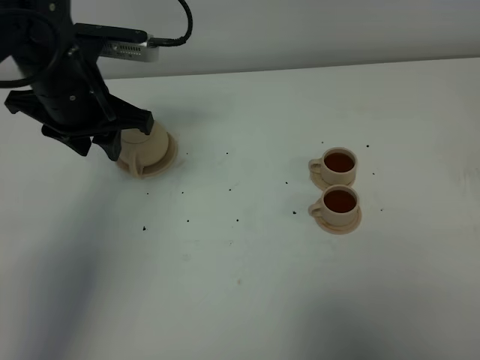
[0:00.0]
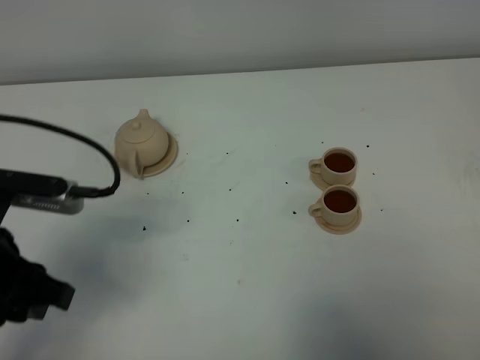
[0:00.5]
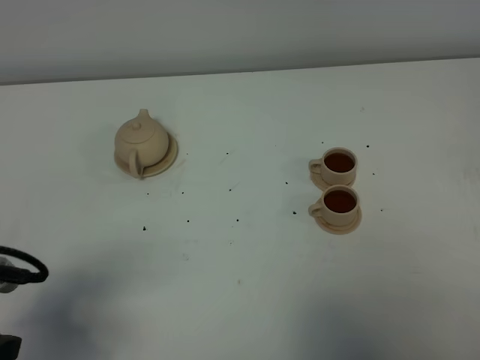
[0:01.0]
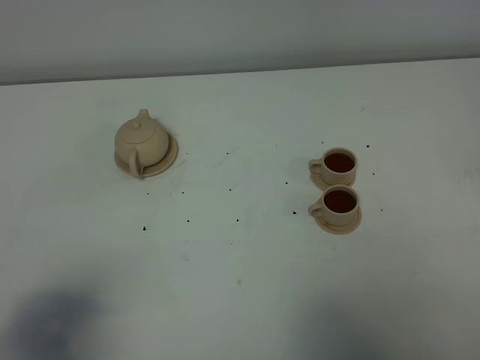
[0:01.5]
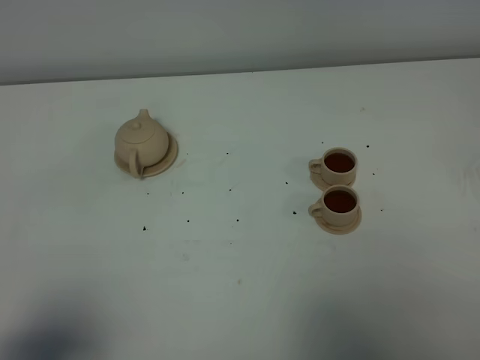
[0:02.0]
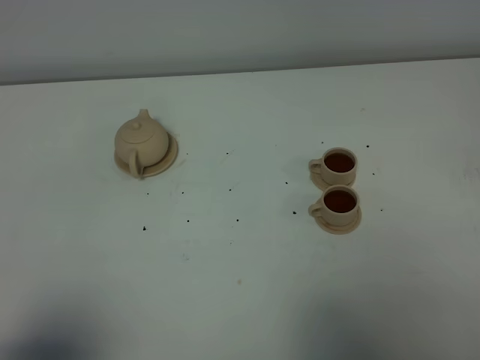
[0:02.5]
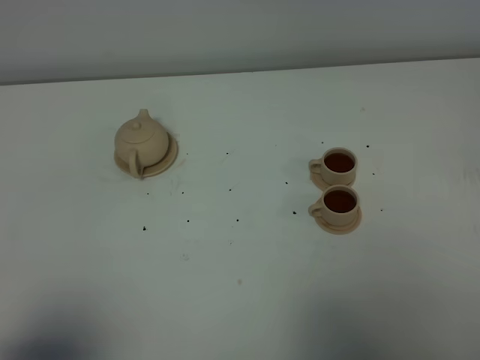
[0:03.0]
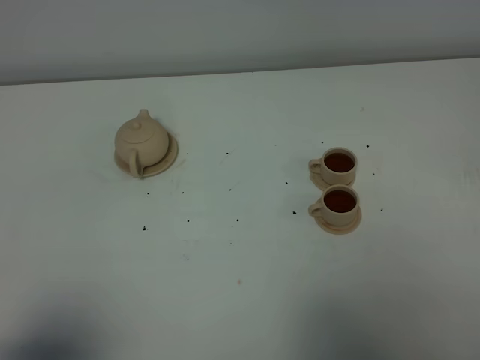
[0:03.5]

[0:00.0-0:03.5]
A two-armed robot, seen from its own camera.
Task of the whole recording: grasp the brown teapot and pour the tea into the two brown teacups one by one, put the brown teapot back in its original place.
0:00.0 to 0:02.0: The left gripper travels backward by approximately 35 cm.
0:02.0 to 0:03.5: Both grippers stay put.

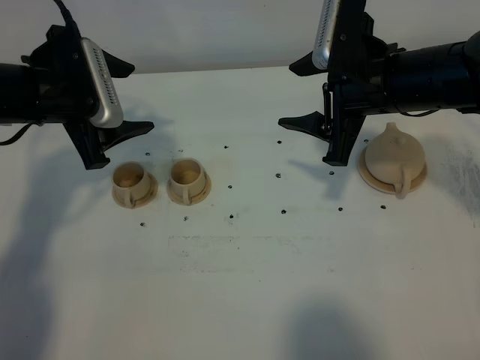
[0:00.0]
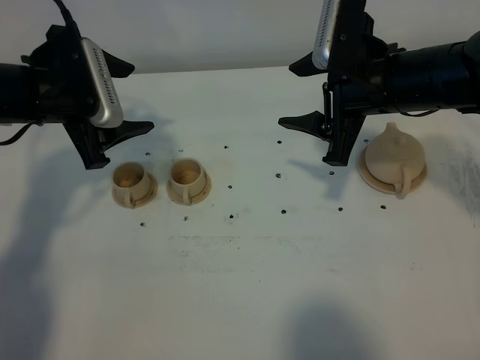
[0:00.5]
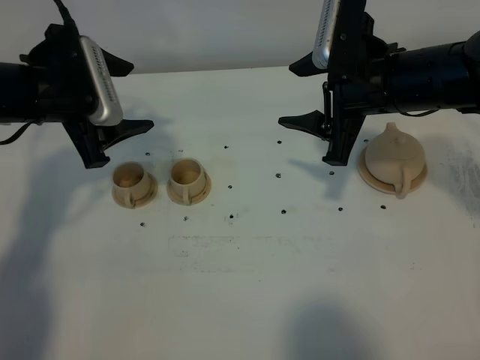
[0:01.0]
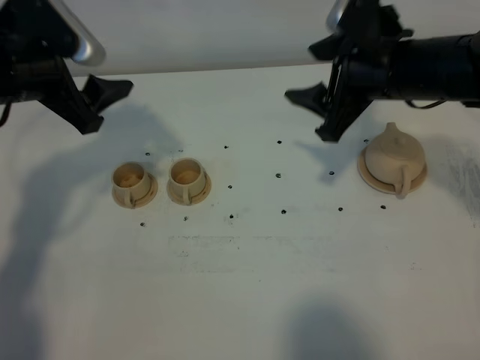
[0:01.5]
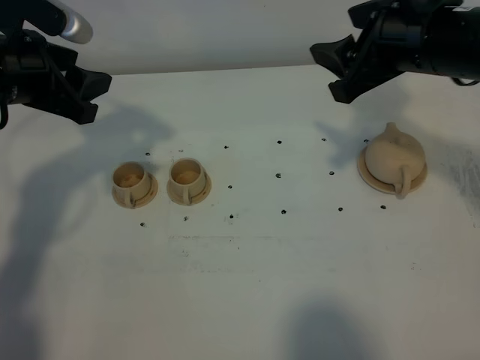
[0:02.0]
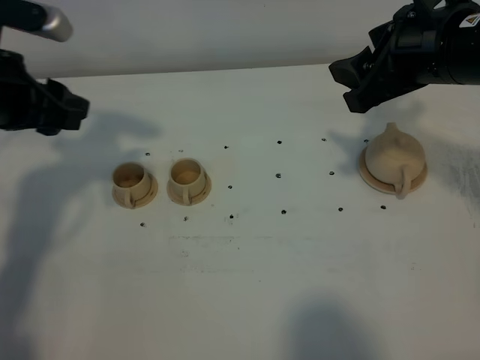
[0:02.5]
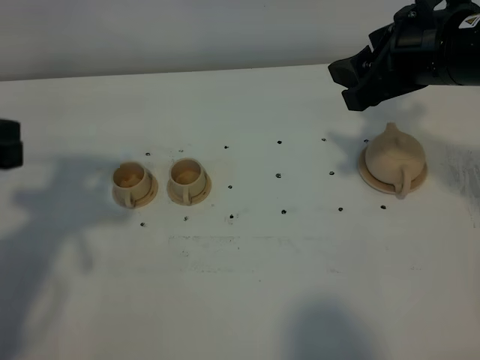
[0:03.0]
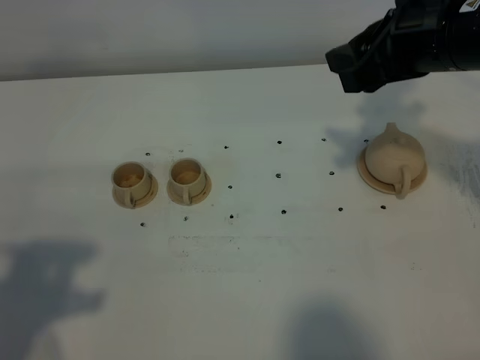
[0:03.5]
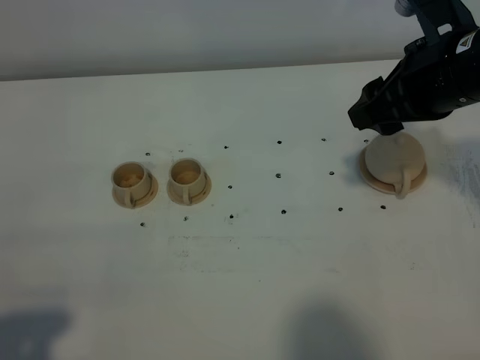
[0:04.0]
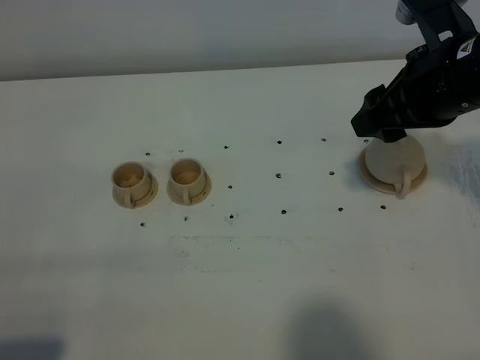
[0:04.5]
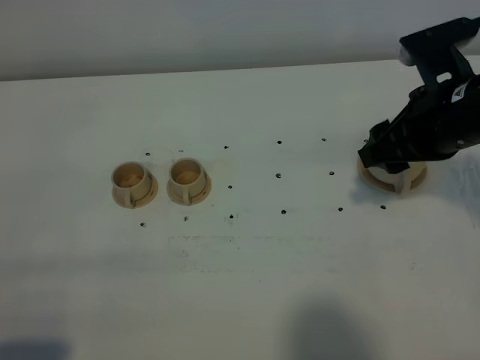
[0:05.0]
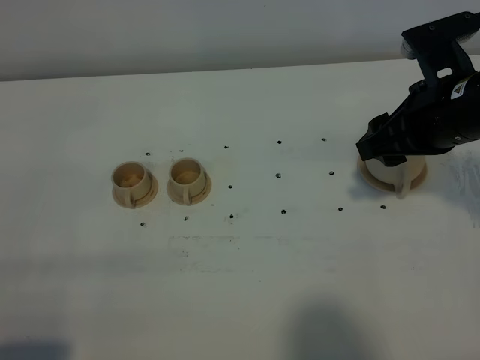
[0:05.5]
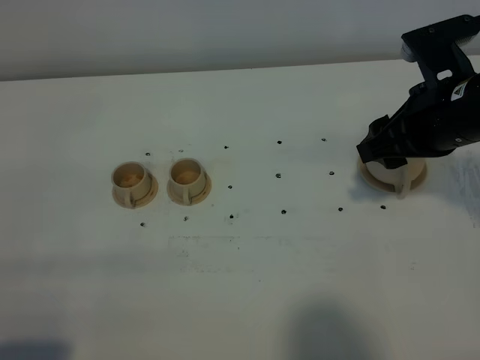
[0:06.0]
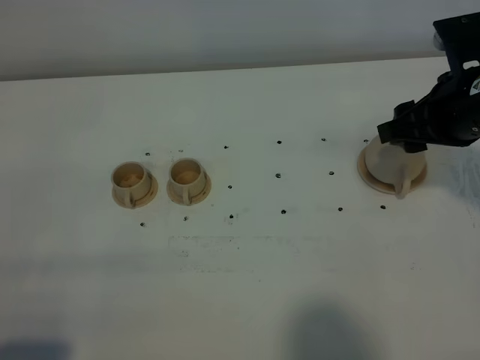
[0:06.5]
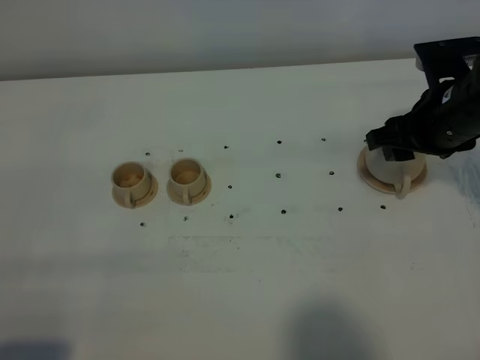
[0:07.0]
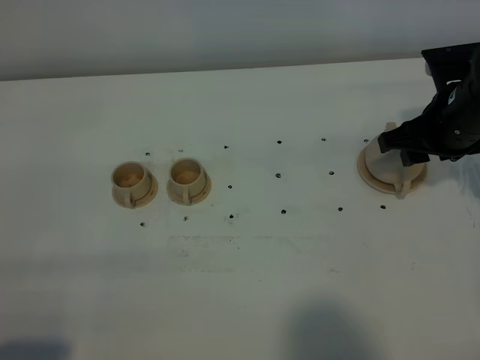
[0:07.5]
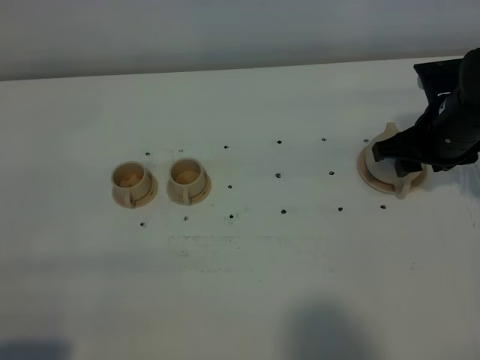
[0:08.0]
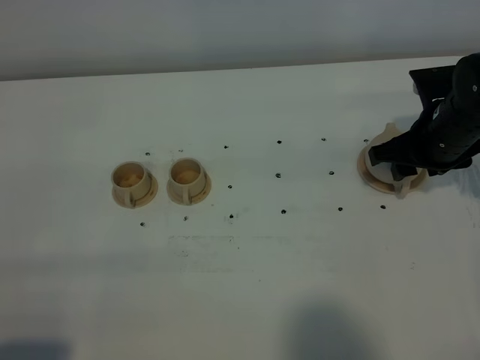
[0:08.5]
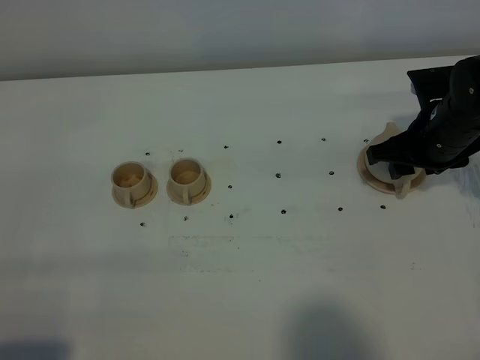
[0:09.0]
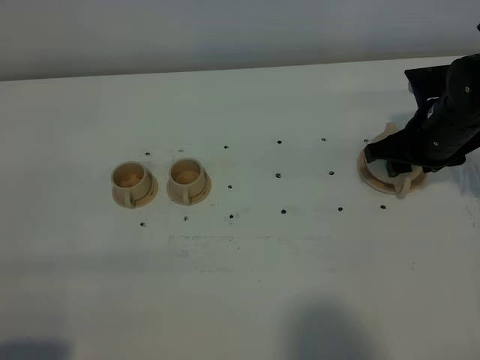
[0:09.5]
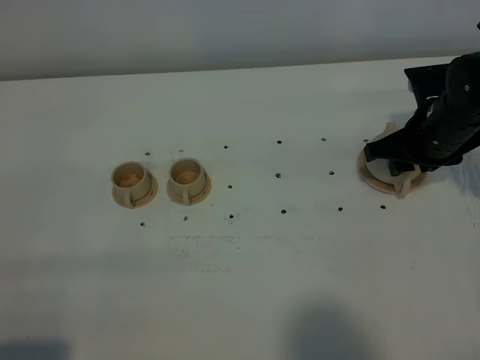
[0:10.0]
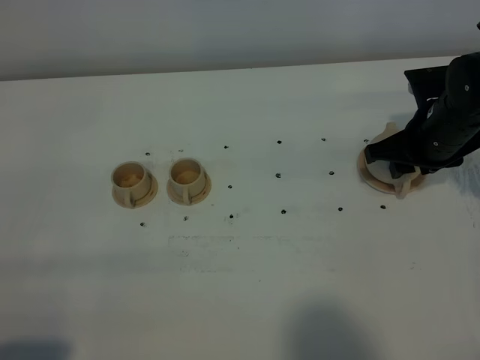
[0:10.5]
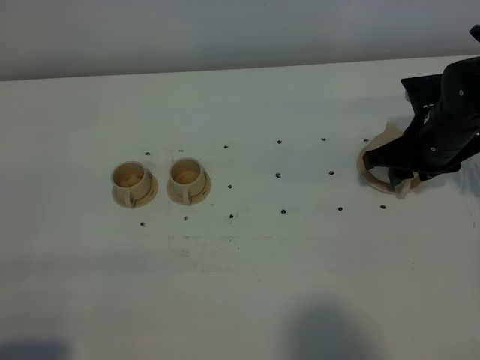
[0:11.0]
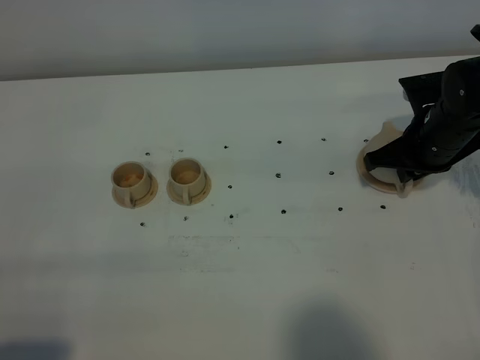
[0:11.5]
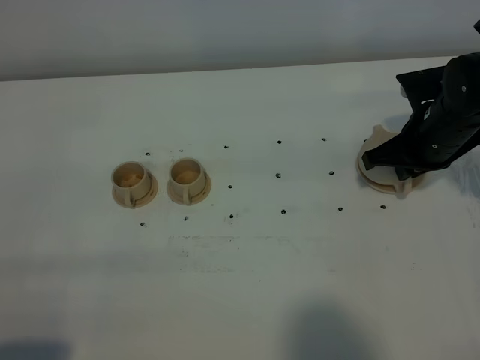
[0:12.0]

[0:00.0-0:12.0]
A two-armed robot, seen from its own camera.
Task of the whole recording: grasp the brown teapot and pour the tea into the two brown teacups one by one, put the brown teapot back in its original place.
Step, 0:00.0 to 0:11.5: Pick up the teapot with the right gripper.
0:00.0 to 0:02.0: The left gripper closes its fingers, while the right gripper is displaced upward by roughly 5 cm.
0:02.0 to 0:04.0: The left gripper heads backward, covering about 30 cm, and closes up.
0:04.0 to 0:06.0: The grippers stay close to where they were, moving slightly.
0:06.0 to 0:08.0: The right gripper shifts roughly 10 cm downward and forward.
0:08.0 to 0:10.0: The grippers stay close to where they were, moving slightly.
0:10.0 to 0:12.0: The right gripper closes up.

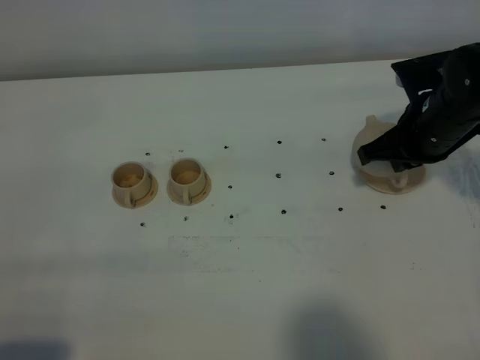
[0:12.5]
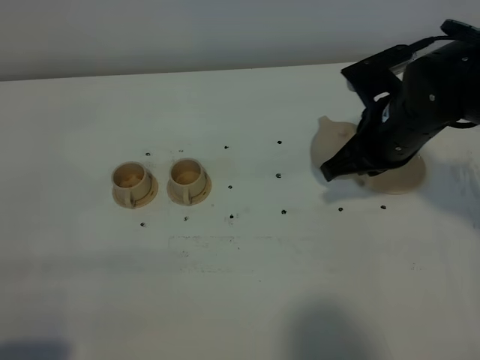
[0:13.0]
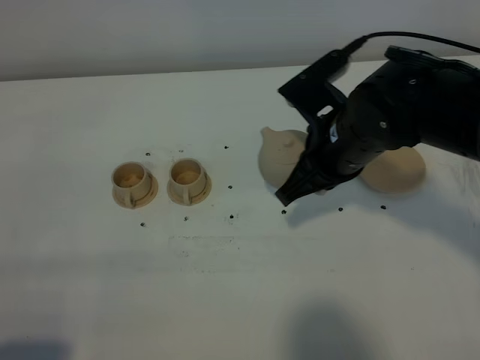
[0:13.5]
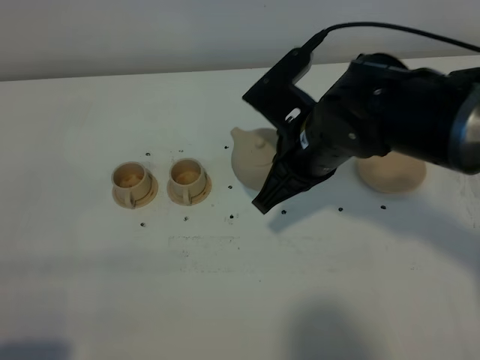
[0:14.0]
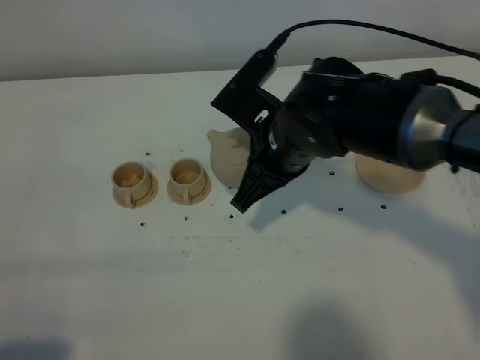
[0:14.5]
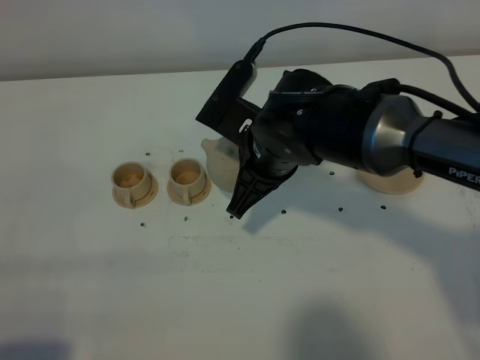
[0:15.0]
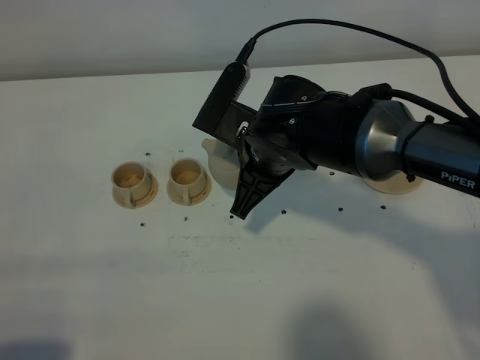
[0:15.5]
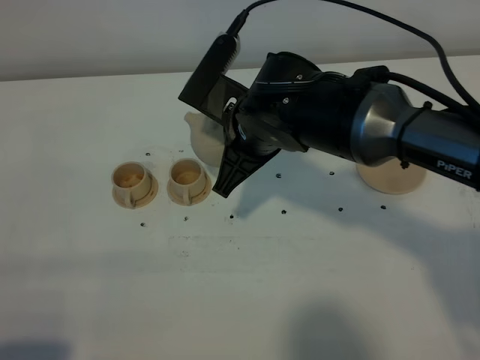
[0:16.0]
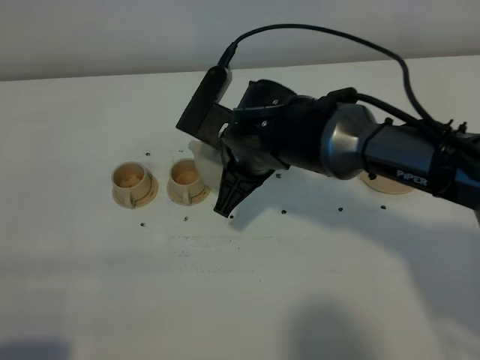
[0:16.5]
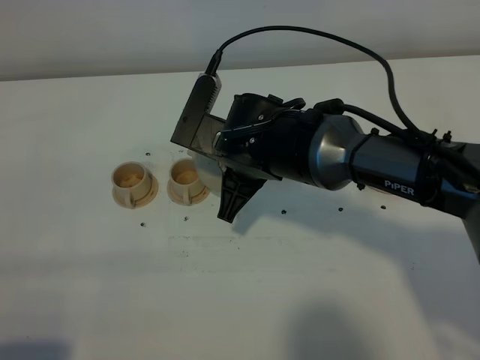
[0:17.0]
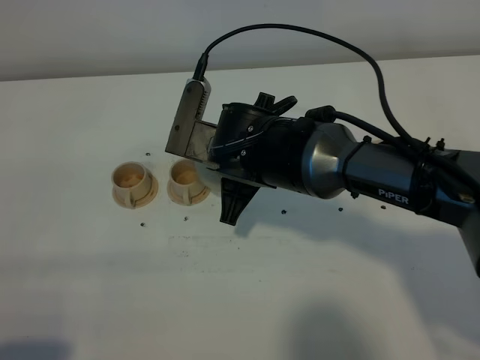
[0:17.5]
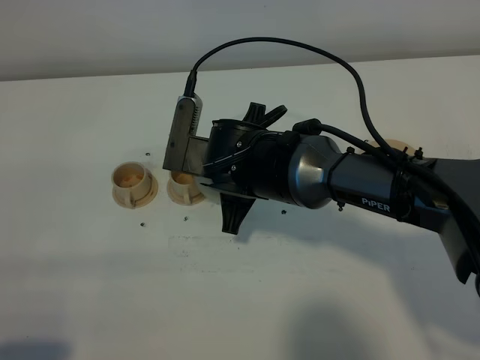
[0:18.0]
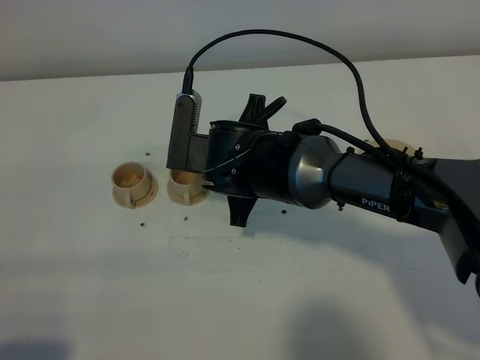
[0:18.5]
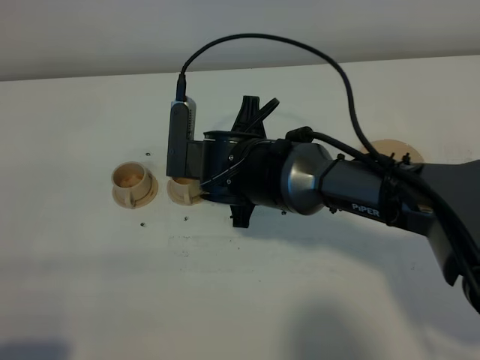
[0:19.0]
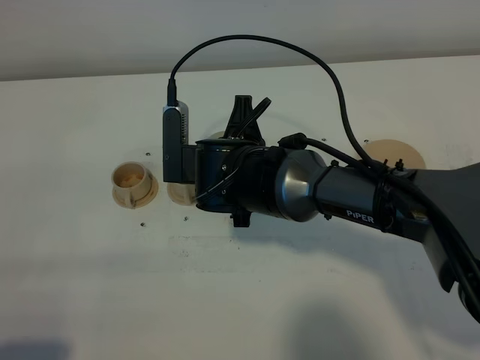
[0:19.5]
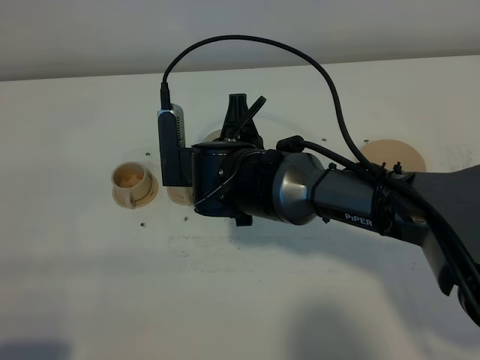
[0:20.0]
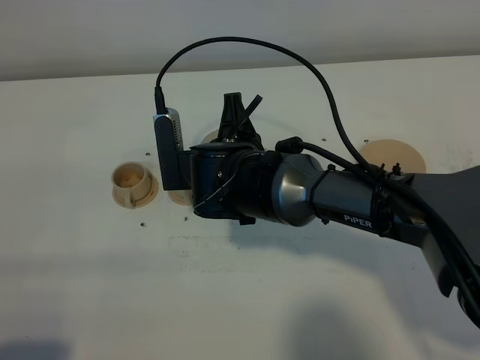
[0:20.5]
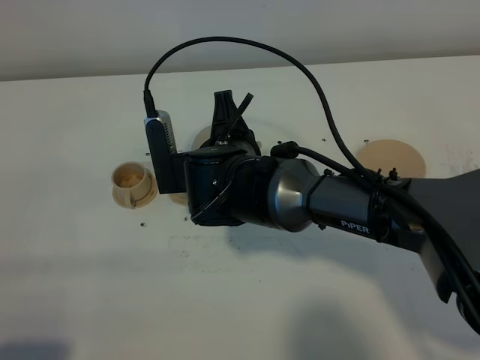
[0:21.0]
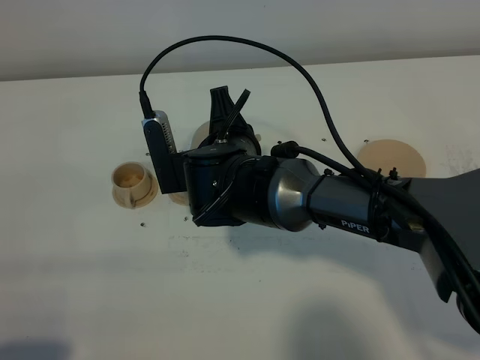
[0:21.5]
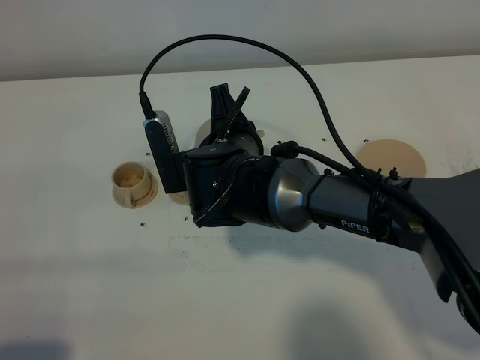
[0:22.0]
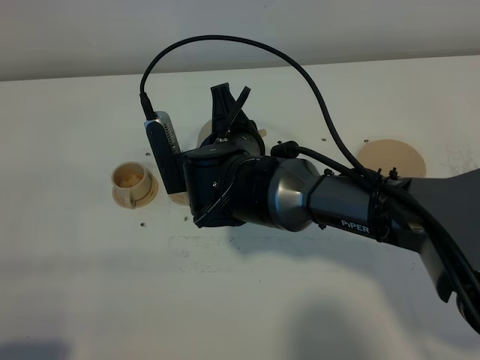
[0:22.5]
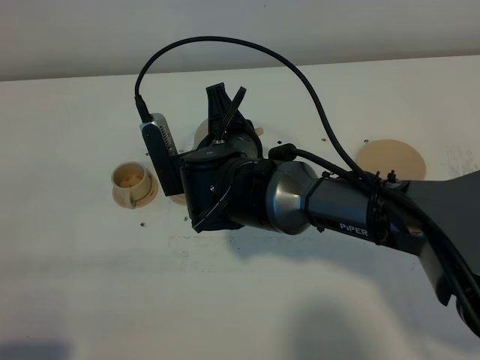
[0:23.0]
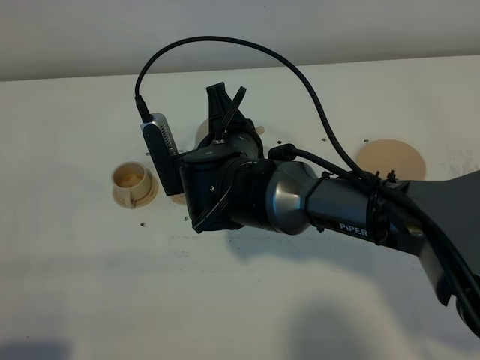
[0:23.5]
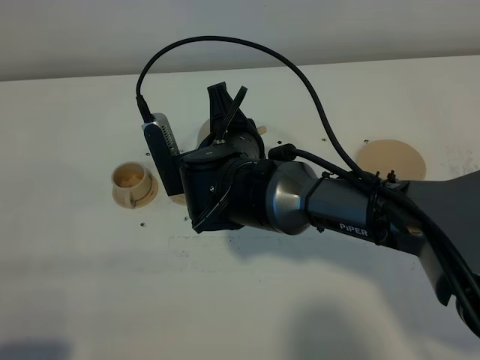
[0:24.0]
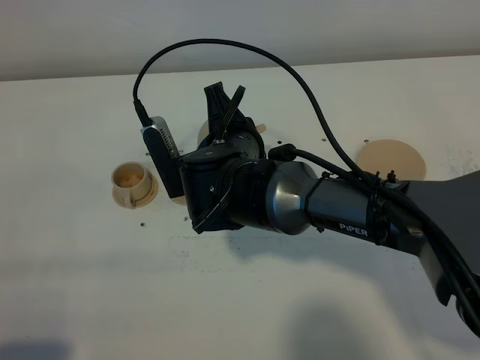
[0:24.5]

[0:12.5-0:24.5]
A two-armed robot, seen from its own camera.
Task of the whole recording: grasp the brown teapot and pour the tea into the two brown teacups one by one, put the brown teapot back in its original place.
0:12.5 to 0:14.5: The right gripper goes approximately 15 cm to the left.
0:14.5 to 0:16.5: The right gripper moves about 5 cm.
0:18.5 to 0:20.5: The grippers move only a little.
0:20.5 to 0:24.5: The grippers make only small movements.
